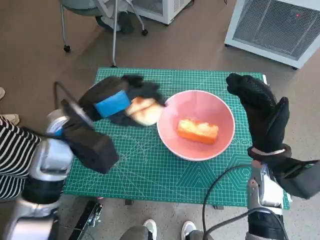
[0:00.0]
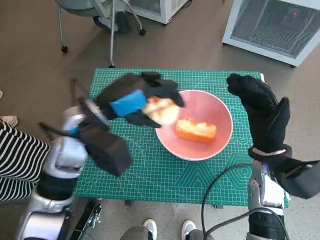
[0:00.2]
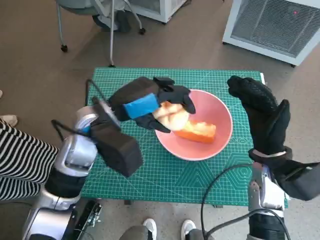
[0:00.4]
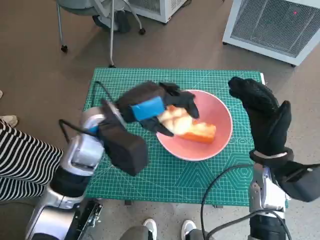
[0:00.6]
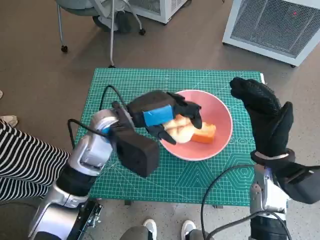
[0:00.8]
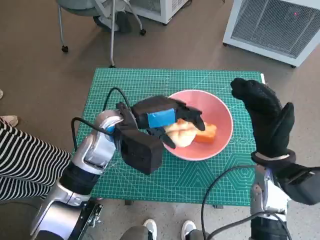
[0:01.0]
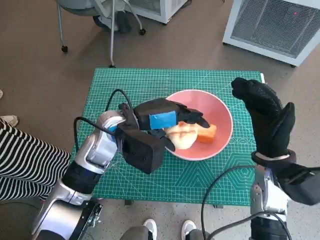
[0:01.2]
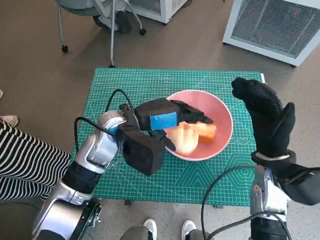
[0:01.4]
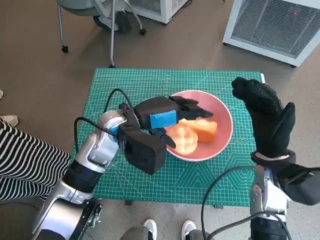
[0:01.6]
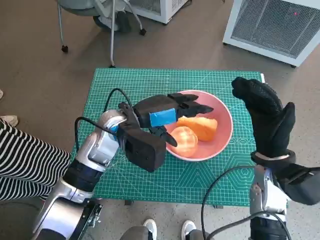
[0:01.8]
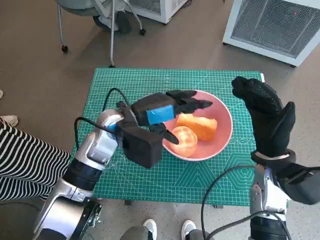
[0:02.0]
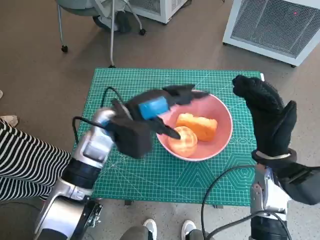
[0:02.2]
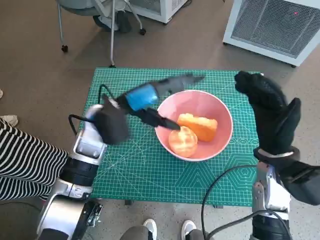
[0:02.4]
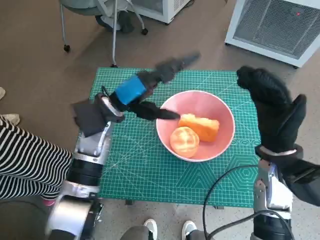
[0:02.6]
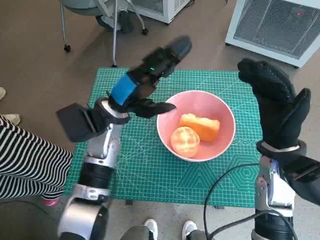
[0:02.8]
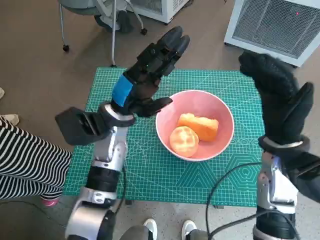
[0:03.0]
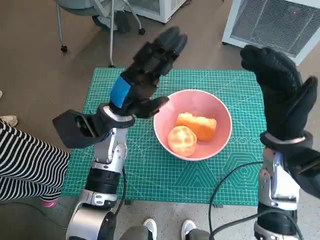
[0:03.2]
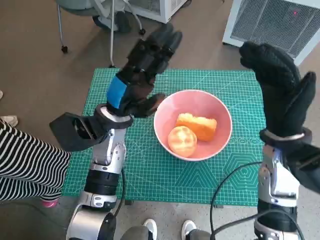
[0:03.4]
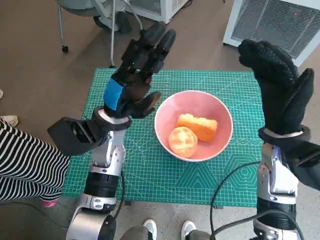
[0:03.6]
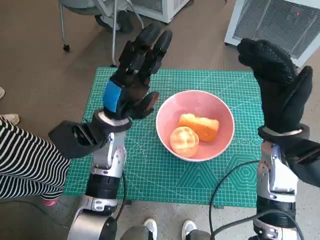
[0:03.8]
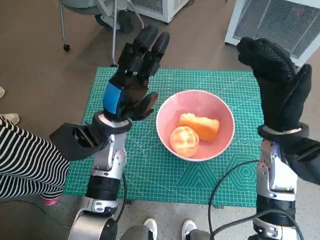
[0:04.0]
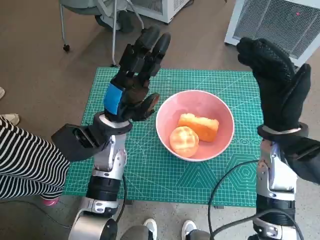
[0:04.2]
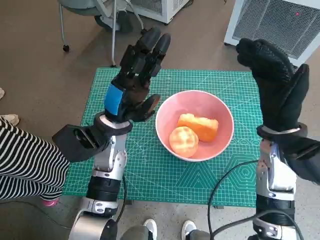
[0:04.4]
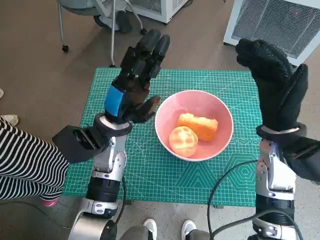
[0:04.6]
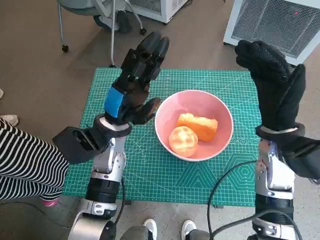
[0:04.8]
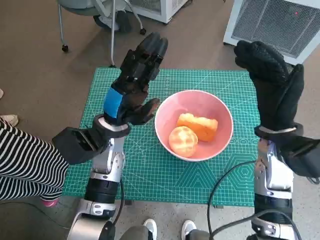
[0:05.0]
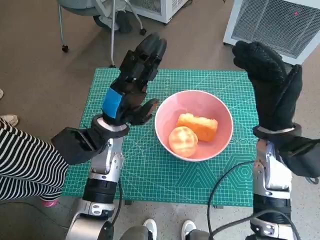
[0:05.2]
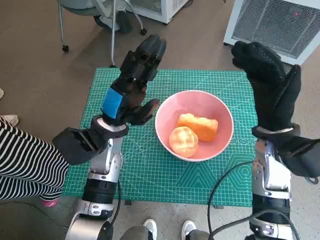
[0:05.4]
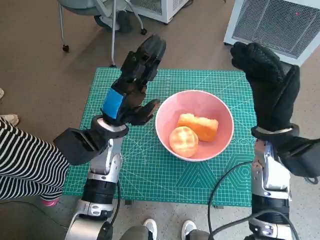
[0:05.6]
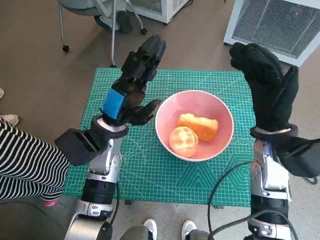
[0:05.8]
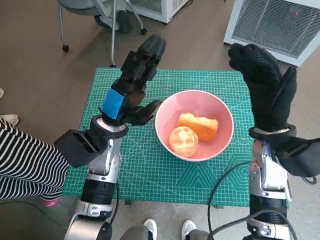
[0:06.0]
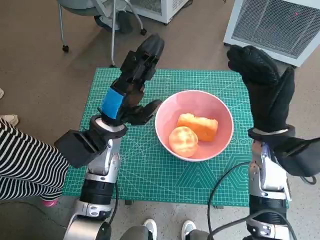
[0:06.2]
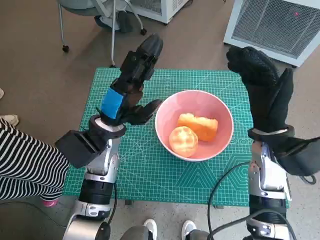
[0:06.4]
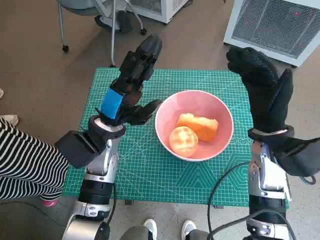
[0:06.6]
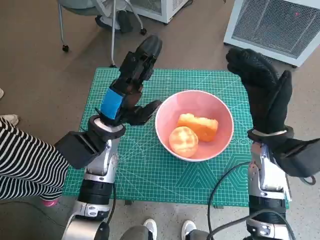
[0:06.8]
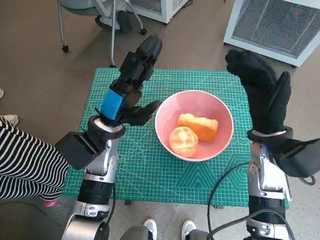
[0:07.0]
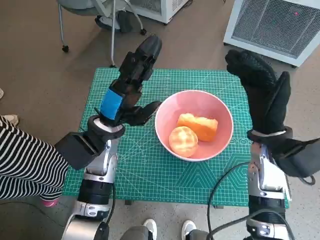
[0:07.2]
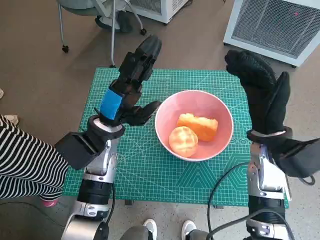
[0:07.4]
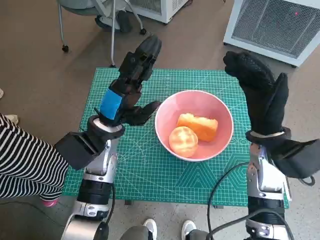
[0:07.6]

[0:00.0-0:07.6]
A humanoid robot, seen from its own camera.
Task of the whole recording: Push the bowl into the center of the table and put the bread into the bowl.
Step, 0:00.0 to 0:02.2: Place the round bread in pink bowl with left hand.
0:00.0 to 0:01.6: The left hand goes about 5 cm to the right.
0:04.6 to 0:06.0: There are only small adjustments of the hands.
0:06.0 to 0:07.6: Both hands stay put.

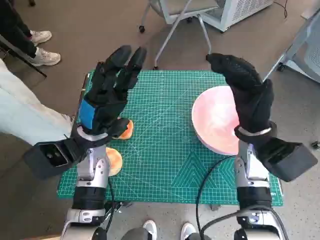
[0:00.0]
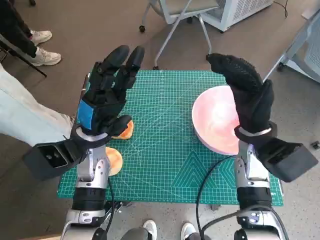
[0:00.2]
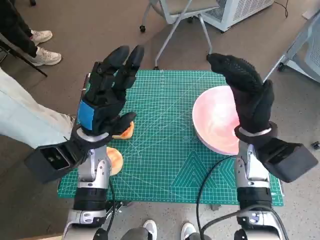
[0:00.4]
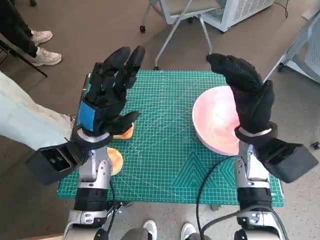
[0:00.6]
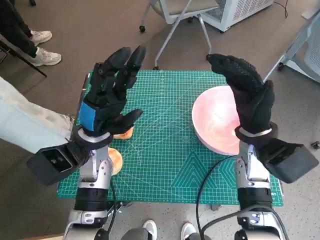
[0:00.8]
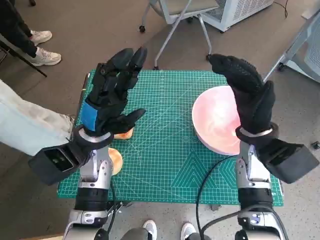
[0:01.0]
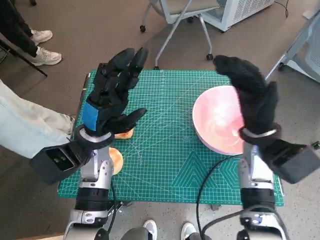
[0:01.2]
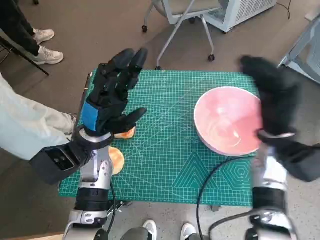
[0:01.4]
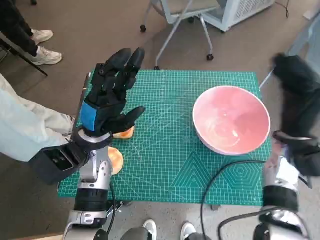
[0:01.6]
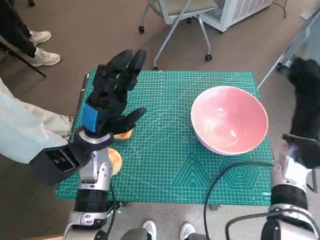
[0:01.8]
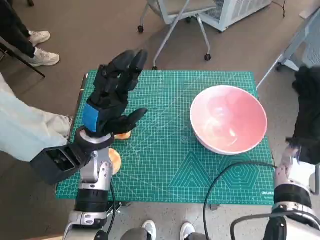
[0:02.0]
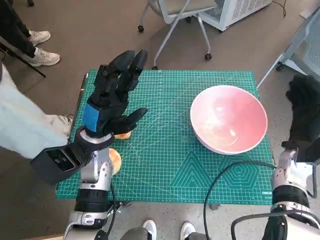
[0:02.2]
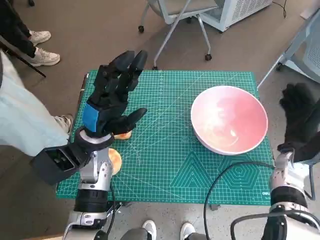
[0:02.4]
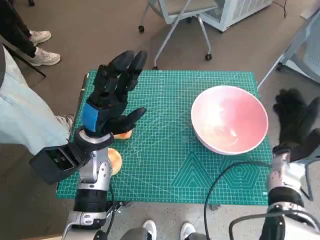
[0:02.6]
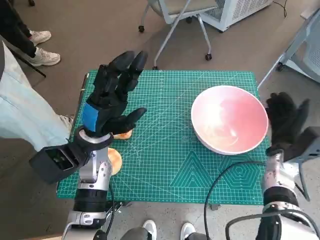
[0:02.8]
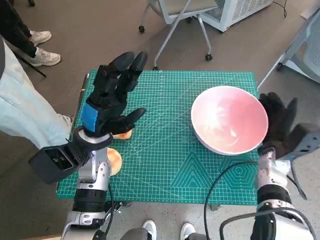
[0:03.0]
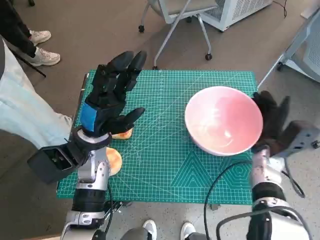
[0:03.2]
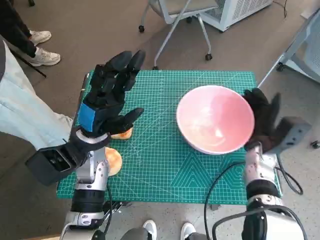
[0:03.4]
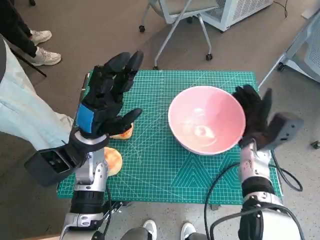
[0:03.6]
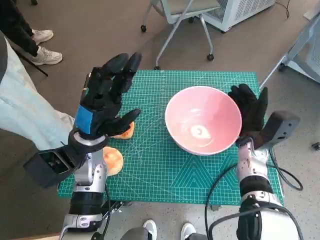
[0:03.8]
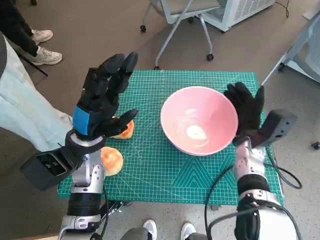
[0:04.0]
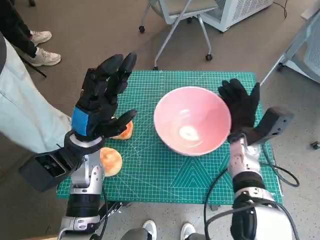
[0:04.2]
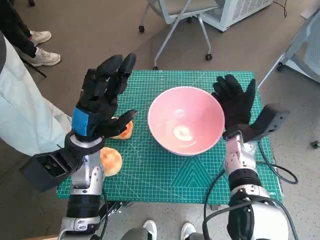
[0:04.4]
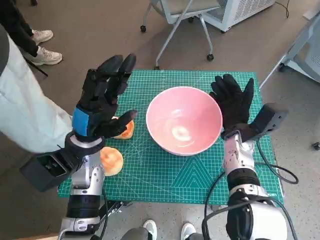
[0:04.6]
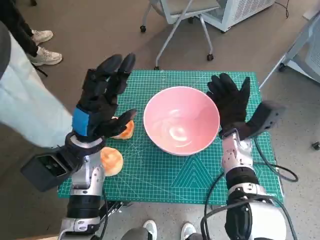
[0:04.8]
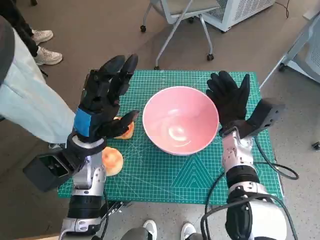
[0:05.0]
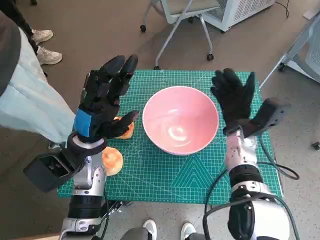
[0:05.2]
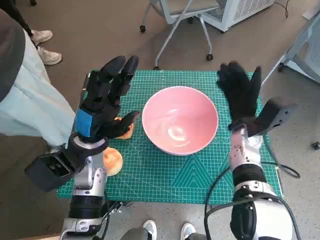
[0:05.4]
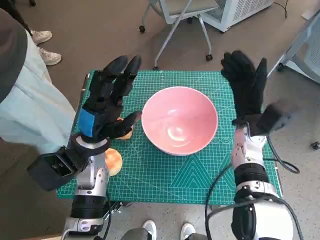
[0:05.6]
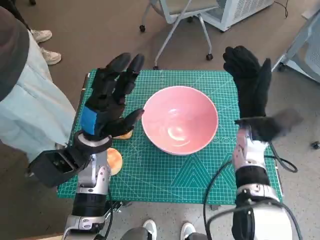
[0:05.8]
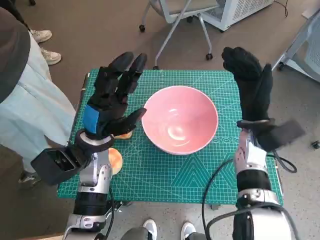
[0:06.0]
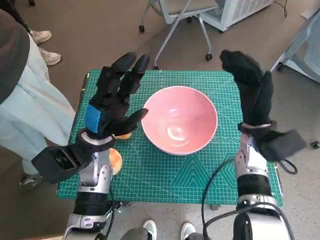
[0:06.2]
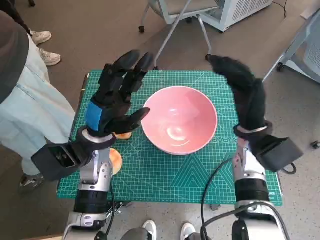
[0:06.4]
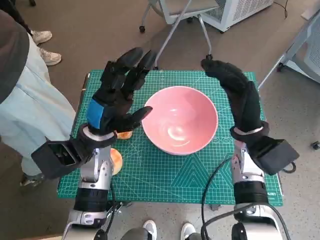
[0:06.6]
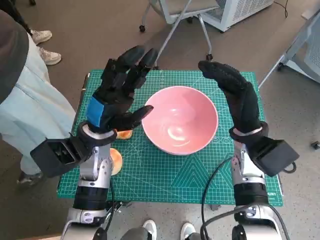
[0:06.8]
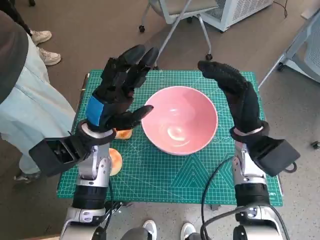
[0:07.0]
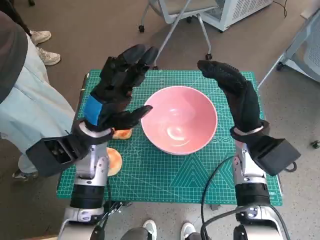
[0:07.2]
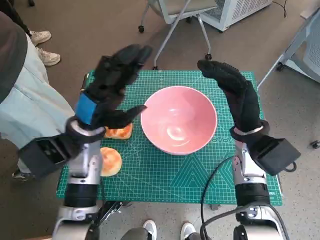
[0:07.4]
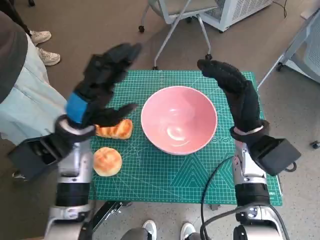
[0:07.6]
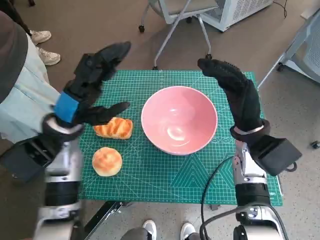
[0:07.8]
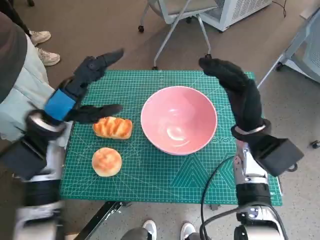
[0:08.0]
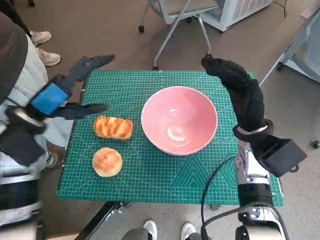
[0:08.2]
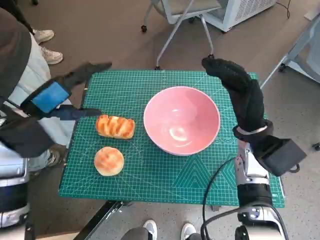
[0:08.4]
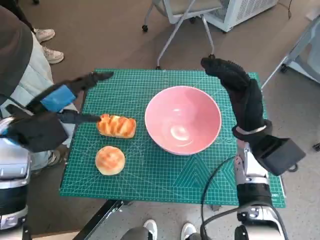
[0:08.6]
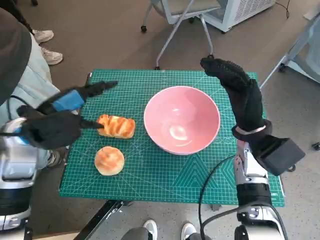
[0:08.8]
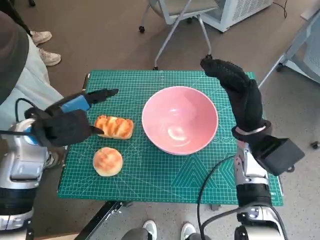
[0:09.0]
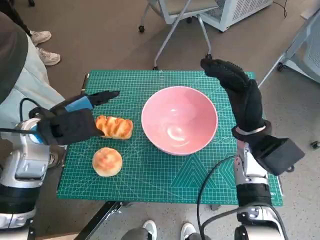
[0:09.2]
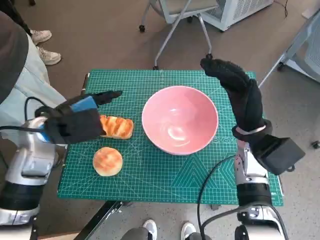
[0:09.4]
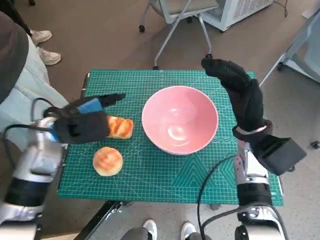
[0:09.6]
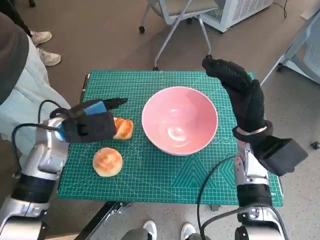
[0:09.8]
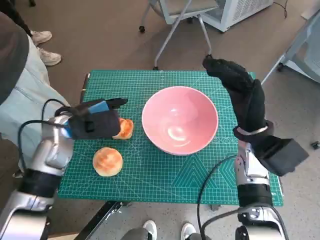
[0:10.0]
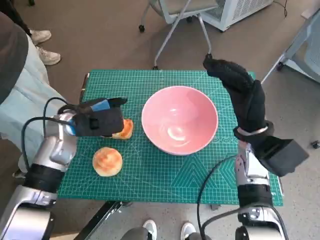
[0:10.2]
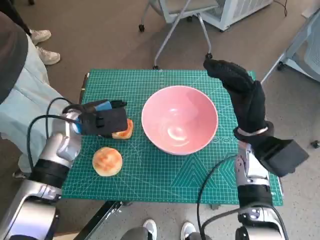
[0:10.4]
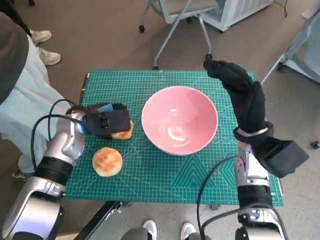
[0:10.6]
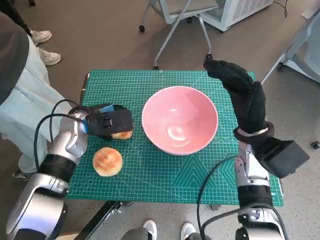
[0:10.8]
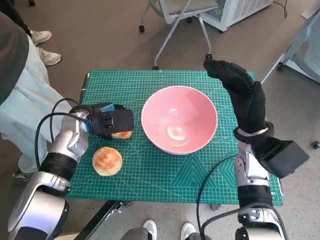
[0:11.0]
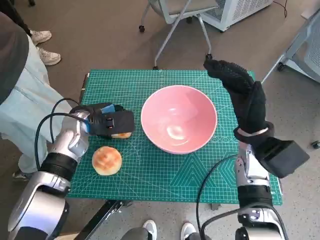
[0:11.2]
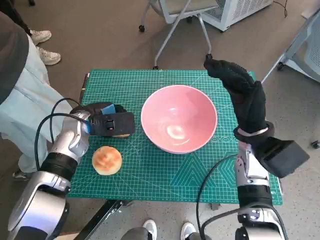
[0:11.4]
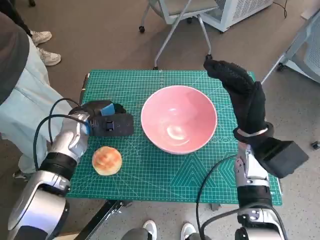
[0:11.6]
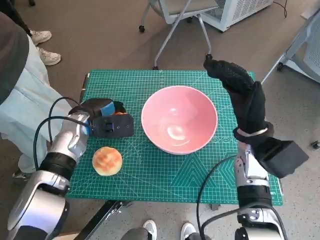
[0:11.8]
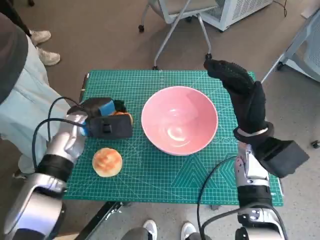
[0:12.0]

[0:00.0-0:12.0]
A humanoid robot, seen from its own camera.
Task of the whole recording: Push the bowl into the center of the table and put the bread into the bowl.
Step, 0:00.0 to 0:05.4: Move the pink bowl to the center of table with right hand.
Step, 0:05.8 to 0:11.6: Grasp the long bread with left hand.
0:01.6 to 0:03.0: The right hand travels downward by roughly 5 cm.
0:03.0 to 0:04.4: The right hand shifts about 10 cm to the left.
0:04.4 to 0:06.0: The right hand is displaced upward by some 5 cm.
0:07.6 to 0:09.0: The left hand is displaced to the left by roughly 5 cm.
0:09.0 to 0:10.4: The left hand heads downward, covering roughly 5 cm.
0:10.4 to 0:12.0: The hands stay close to where they were, moving slightly.

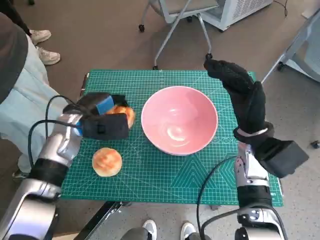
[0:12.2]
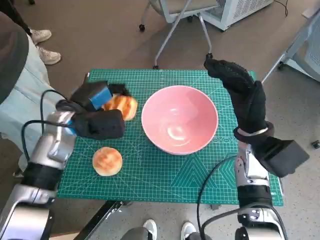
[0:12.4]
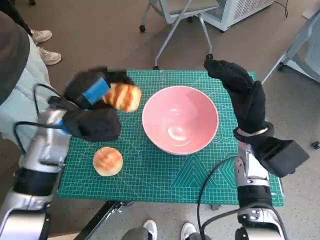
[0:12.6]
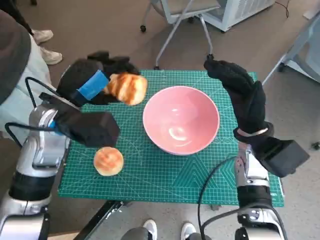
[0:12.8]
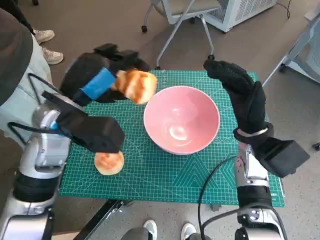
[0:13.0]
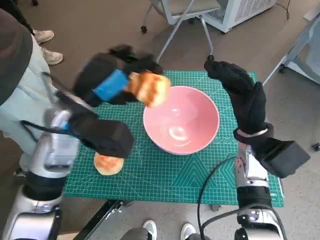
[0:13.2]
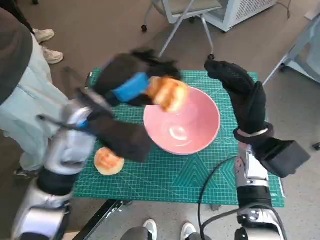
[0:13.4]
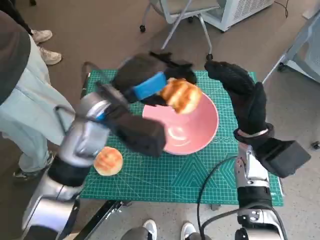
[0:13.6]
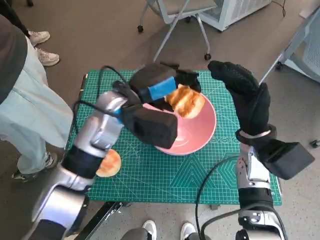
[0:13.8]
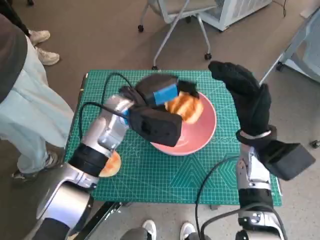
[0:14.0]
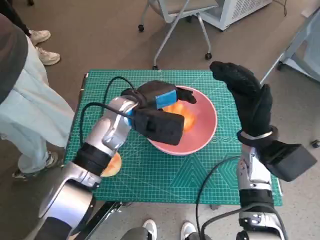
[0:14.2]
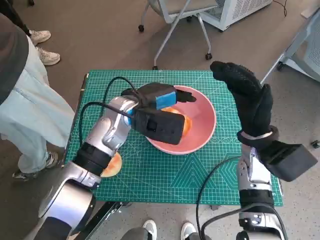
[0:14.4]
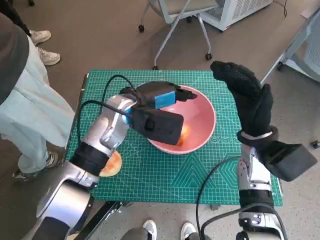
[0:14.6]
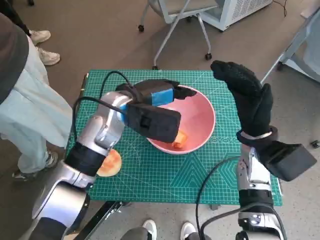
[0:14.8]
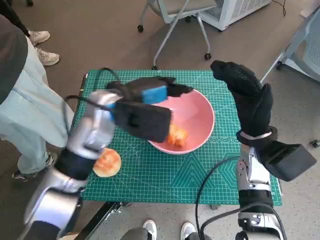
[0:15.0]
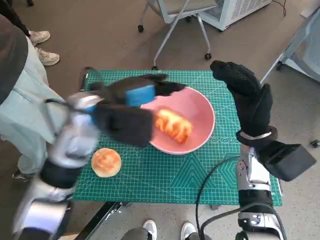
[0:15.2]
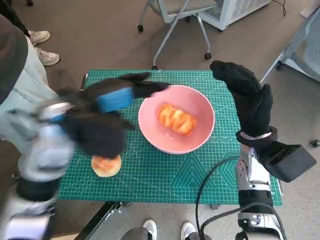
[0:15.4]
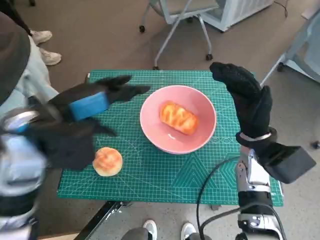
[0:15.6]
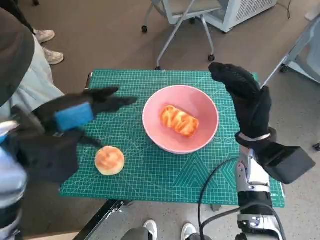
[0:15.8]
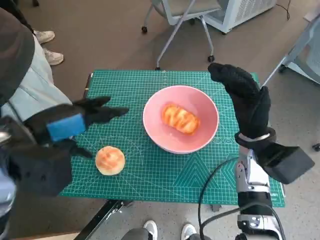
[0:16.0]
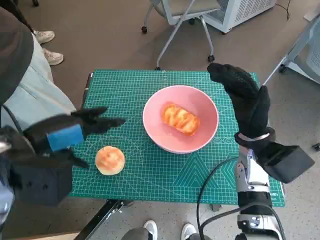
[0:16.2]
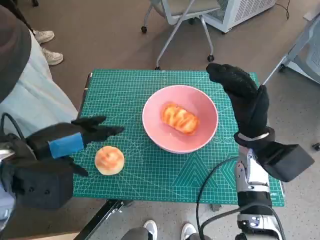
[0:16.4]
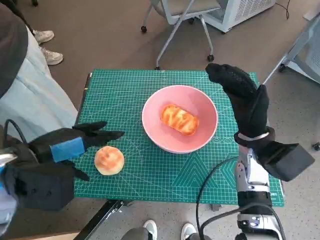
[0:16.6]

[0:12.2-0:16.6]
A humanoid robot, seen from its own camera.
Task of the whole recording: Push the bowl into the center of the table and put the bread into the bowl.
Step, 0:12.2 to 0:14.8: Place the long bread in pink bowl with left hand.
0:12.2 to 0:13.6: The left hand travels to the right and upward by some 15 cm.
0:15.2 to 0:16.6: The left hand heads to the left and backward, covering some 15 cm.
